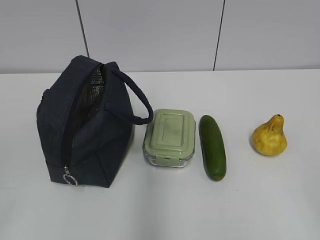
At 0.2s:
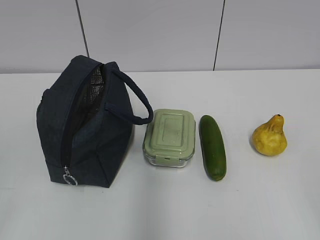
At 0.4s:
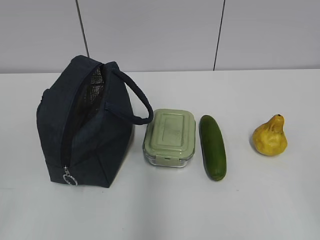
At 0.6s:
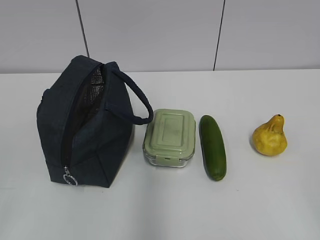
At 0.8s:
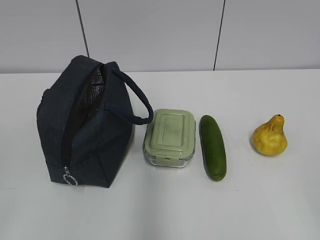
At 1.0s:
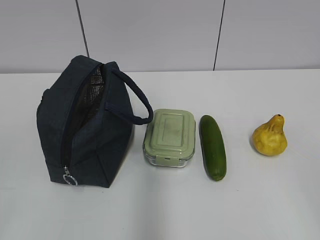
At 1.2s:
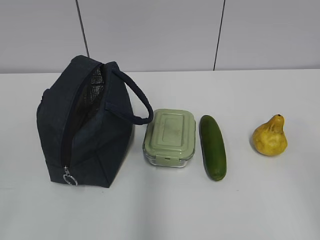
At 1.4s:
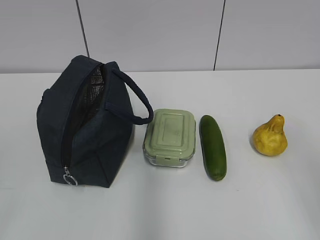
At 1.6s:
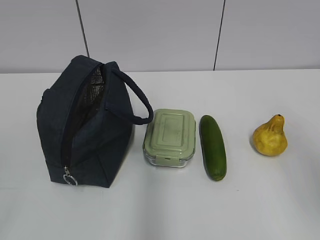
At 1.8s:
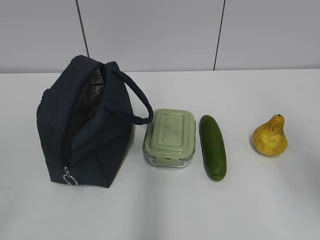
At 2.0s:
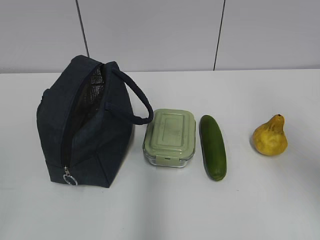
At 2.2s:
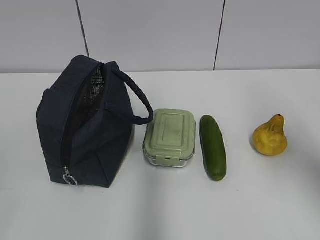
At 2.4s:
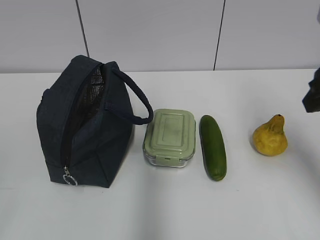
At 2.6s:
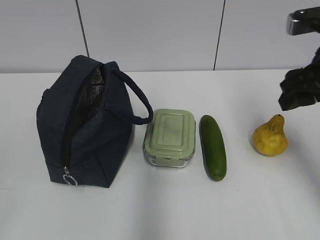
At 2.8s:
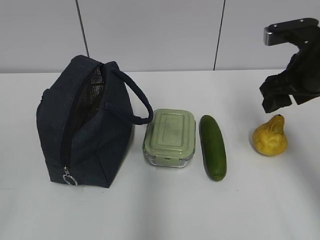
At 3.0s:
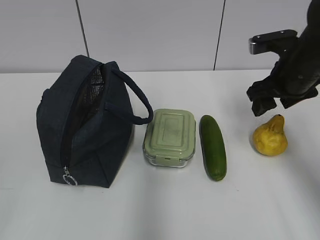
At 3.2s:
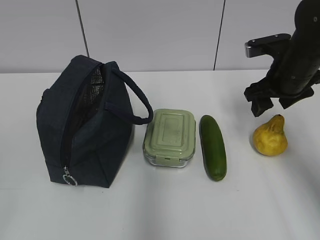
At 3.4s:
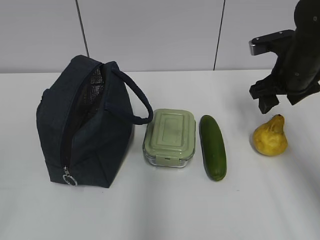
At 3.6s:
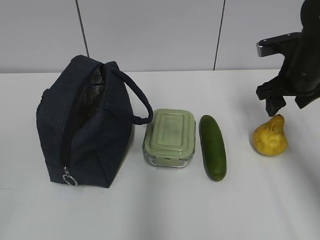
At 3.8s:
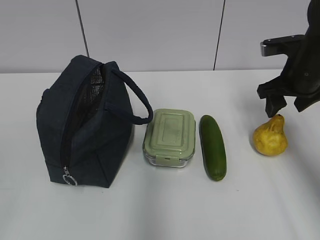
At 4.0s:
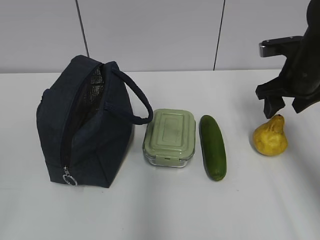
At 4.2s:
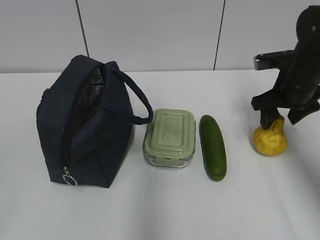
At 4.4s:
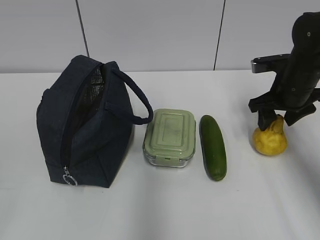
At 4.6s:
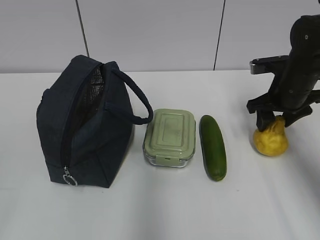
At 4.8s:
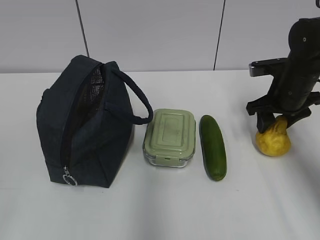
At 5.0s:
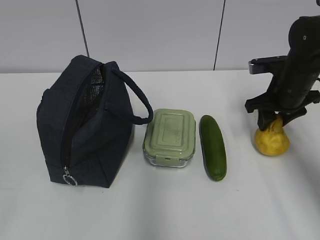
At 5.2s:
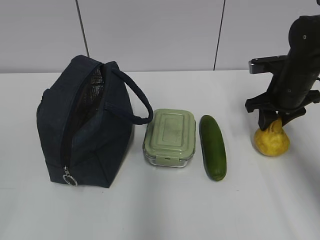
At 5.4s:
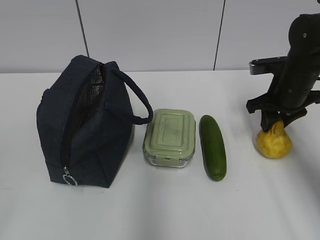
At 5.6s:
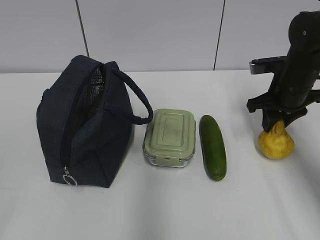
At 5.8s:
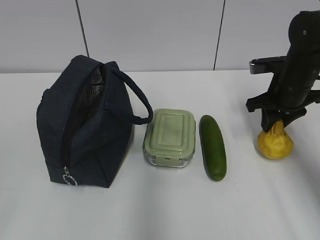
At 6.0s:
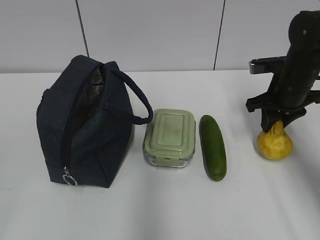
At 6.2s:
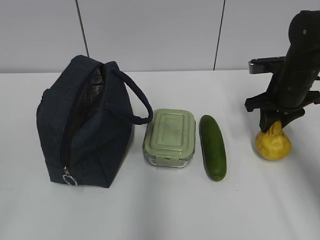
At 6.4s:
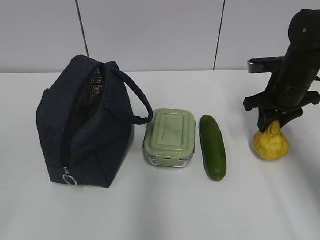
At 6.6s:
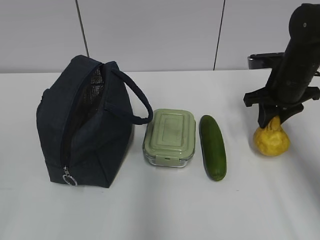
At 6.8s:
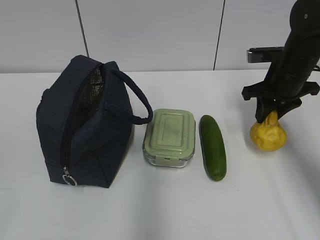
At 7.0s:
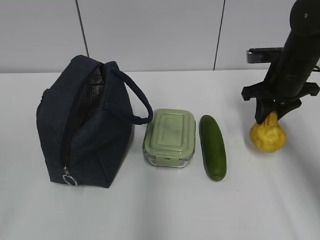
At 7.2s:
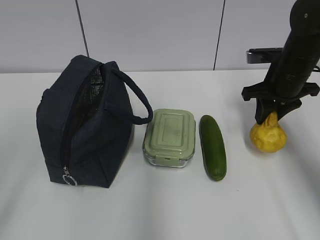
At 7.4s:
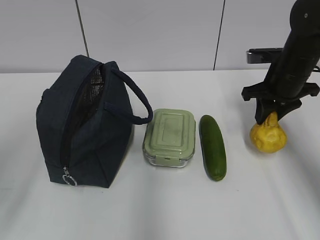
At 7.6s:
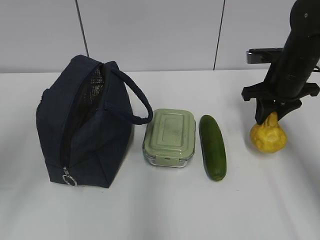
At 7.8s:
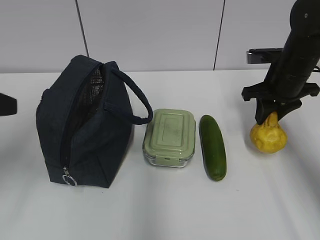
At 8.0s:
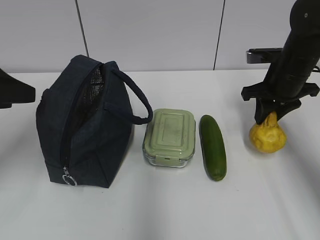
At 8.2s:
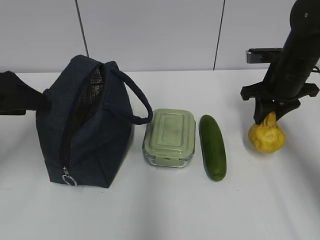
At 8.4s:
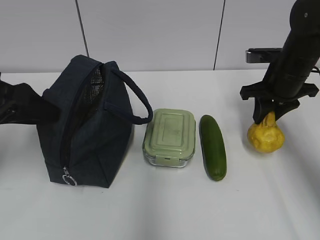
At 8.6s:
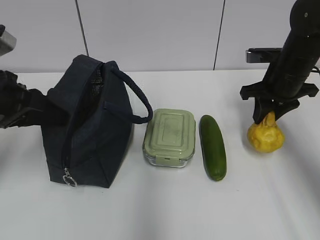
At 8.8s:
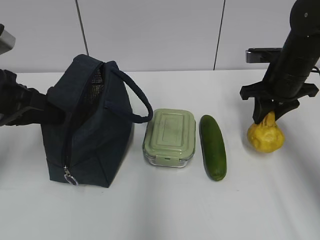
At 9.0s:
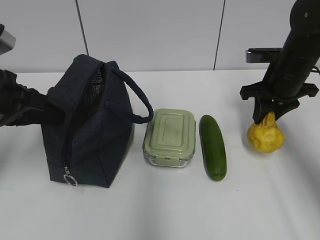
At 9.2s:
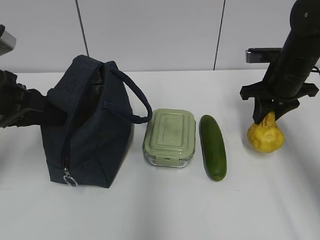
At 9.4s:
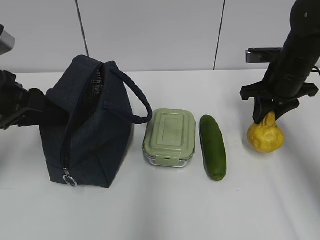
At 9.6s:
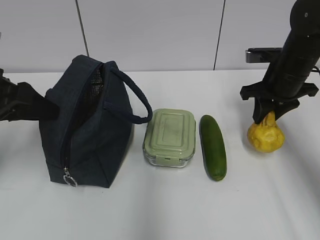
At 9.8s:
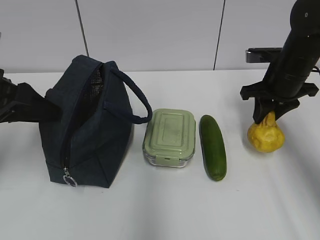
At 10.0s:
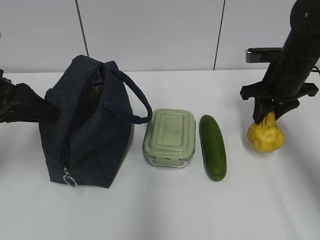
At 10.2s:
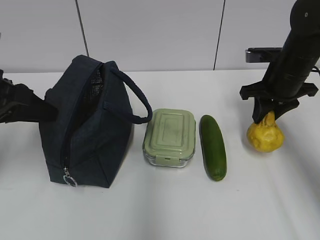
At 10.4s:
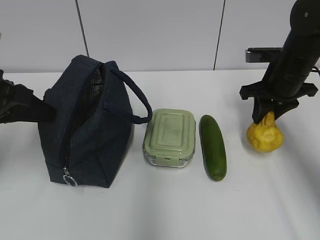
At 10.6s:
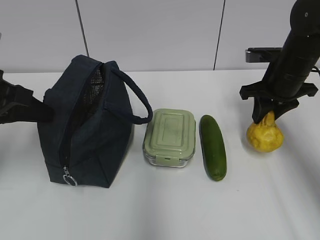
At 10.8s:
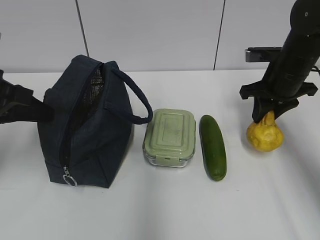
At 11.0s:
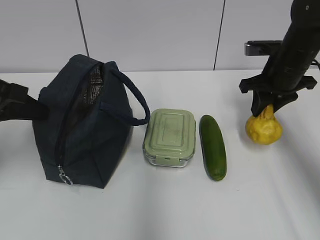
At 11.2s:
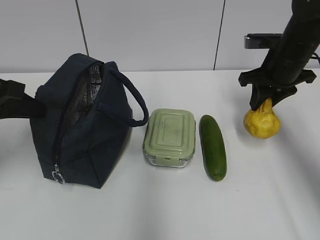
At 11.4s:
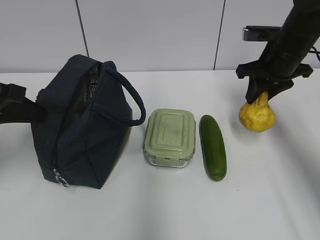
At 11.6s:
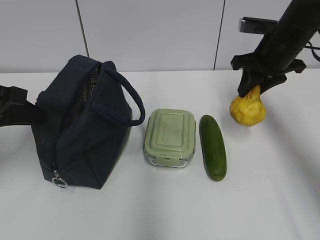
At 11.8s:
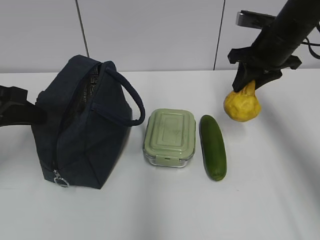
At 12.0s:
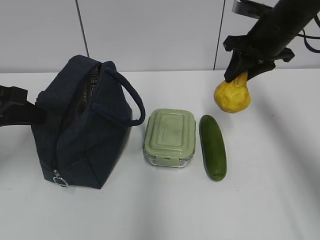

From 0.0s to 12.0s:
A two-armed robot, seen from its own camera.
Step, from 0.0s to 6.4s: Grab the pear with your right hand.
From 1.6s to 3.0s: The right gripper heads forward, covering approximately 30 cm.
From 3.0s to 4.4s: The right gripper ends up roughly 5 cm from where it was.
From 4.4s to 6.0s: The right gripper closes its fingers.
From 6.0s to 7.6s: The left gripper goes approximately 15 cm forward.
From 7.6s to 9.0s: The left gripper is displaced forward and downward by approximately 10 cm, and closes up.
From 9.0s to 10.4s: The left gripper opens, then closes once more.
From 10.4s to 12.0s: The right gripper travels upward by some 5 cm.

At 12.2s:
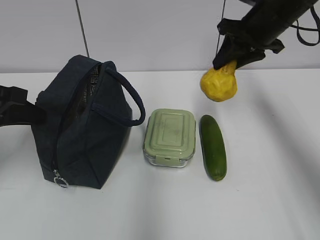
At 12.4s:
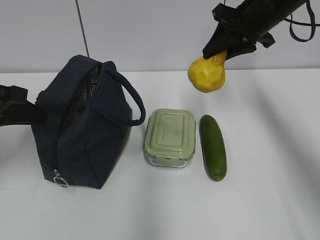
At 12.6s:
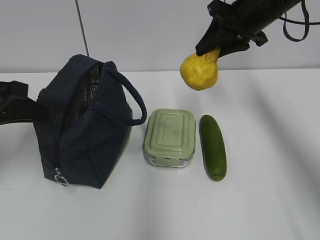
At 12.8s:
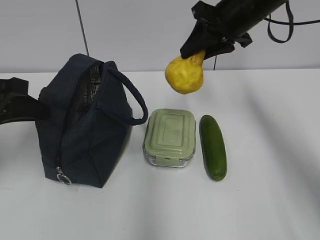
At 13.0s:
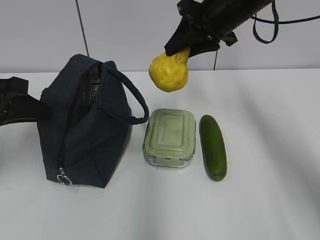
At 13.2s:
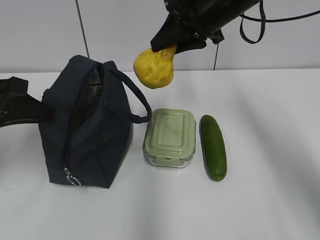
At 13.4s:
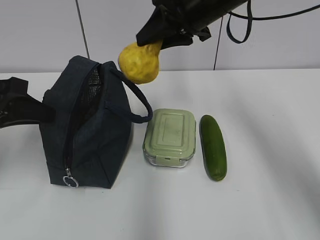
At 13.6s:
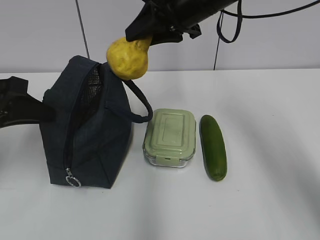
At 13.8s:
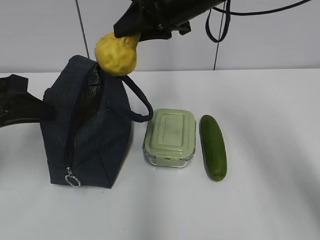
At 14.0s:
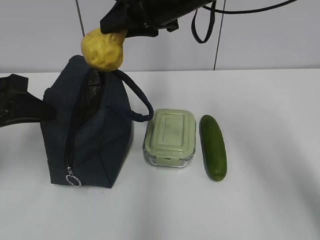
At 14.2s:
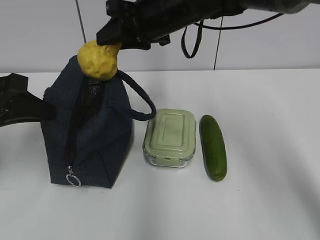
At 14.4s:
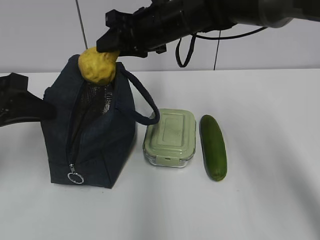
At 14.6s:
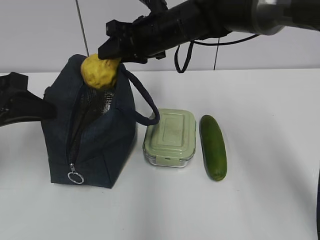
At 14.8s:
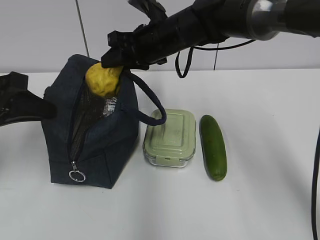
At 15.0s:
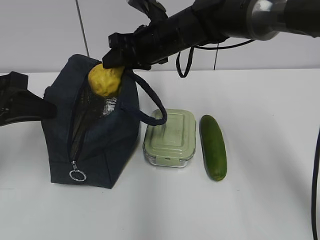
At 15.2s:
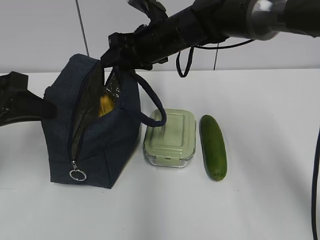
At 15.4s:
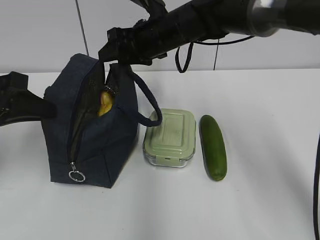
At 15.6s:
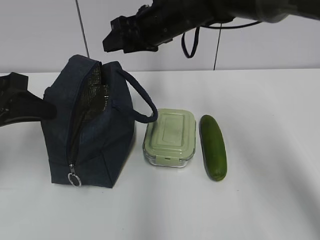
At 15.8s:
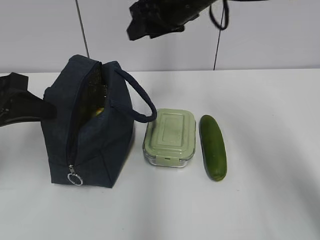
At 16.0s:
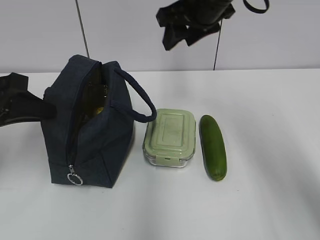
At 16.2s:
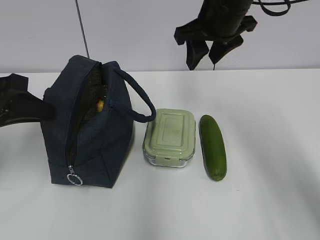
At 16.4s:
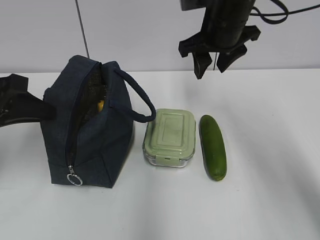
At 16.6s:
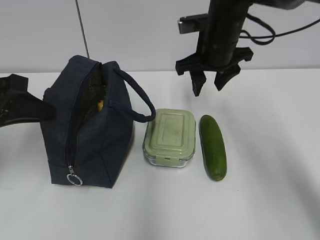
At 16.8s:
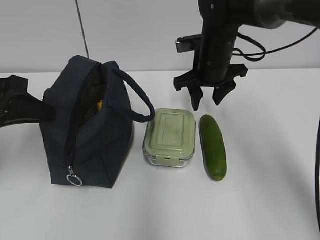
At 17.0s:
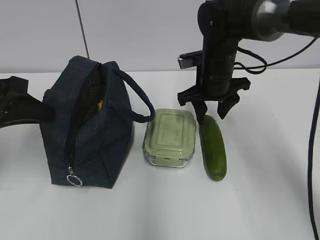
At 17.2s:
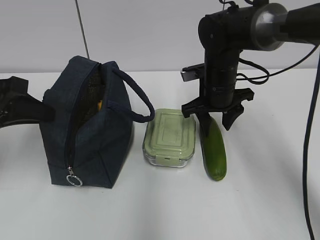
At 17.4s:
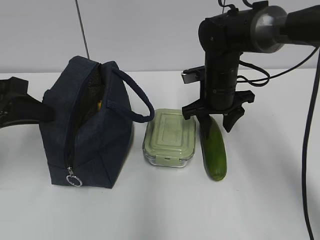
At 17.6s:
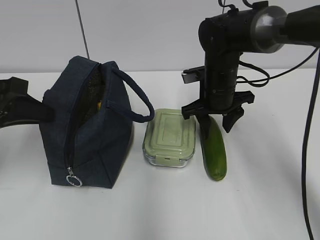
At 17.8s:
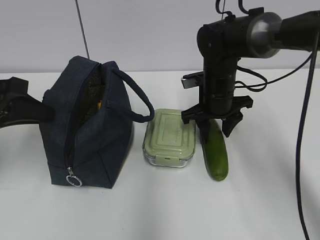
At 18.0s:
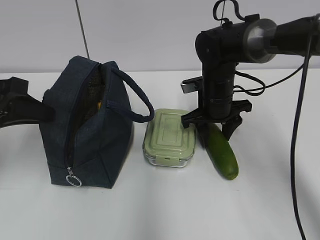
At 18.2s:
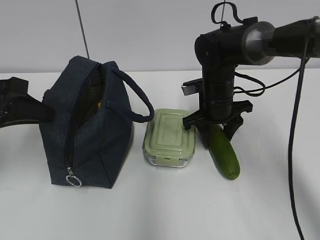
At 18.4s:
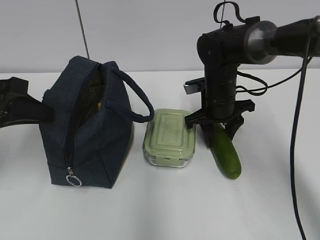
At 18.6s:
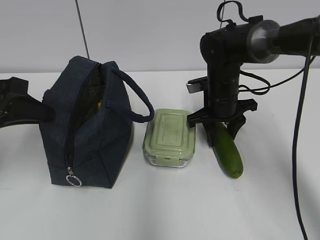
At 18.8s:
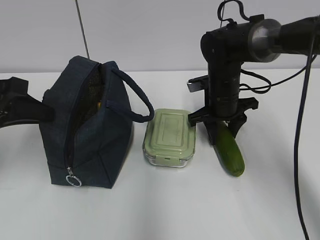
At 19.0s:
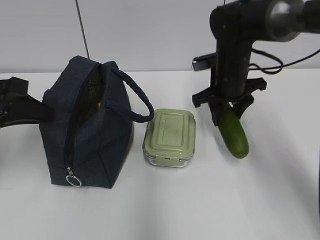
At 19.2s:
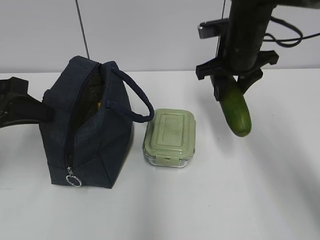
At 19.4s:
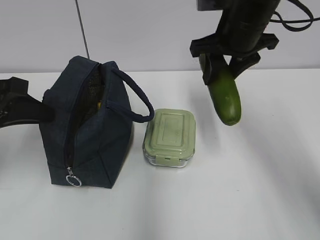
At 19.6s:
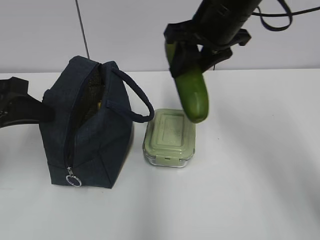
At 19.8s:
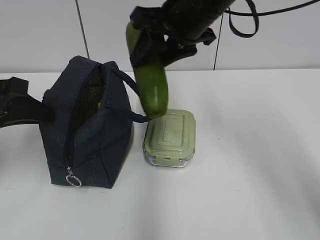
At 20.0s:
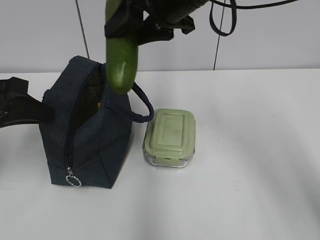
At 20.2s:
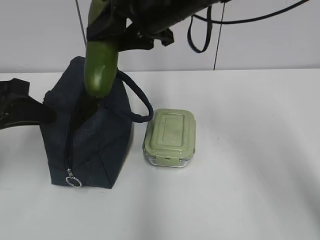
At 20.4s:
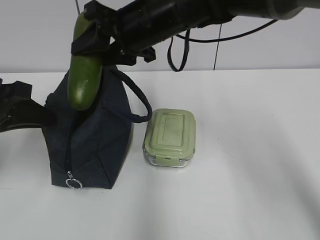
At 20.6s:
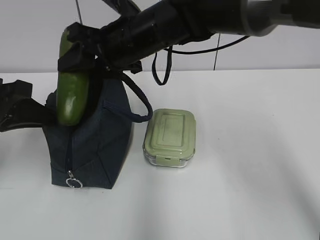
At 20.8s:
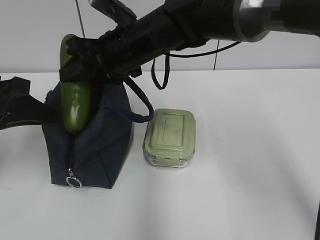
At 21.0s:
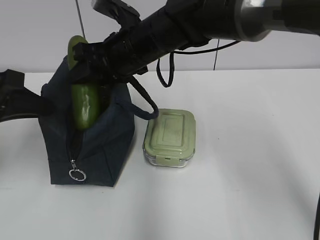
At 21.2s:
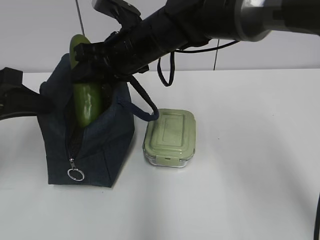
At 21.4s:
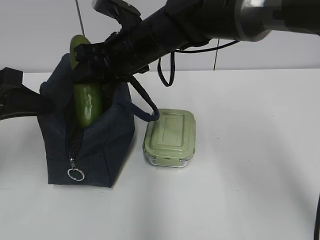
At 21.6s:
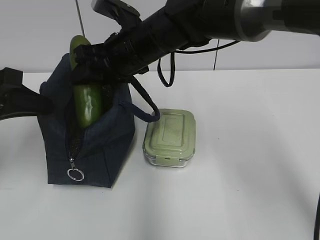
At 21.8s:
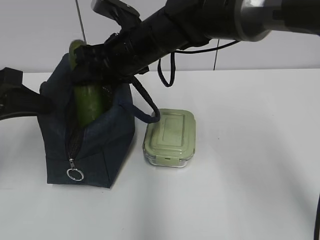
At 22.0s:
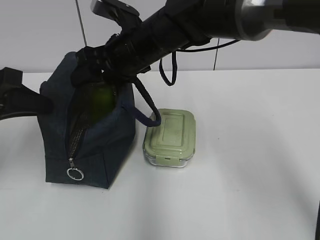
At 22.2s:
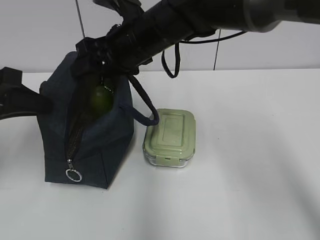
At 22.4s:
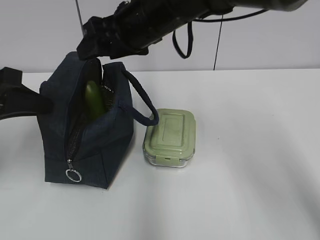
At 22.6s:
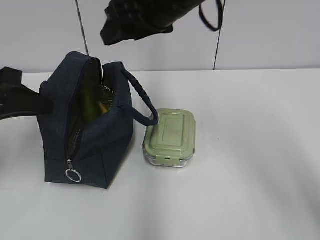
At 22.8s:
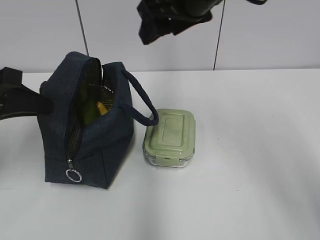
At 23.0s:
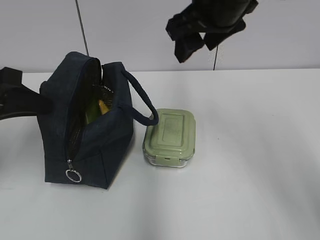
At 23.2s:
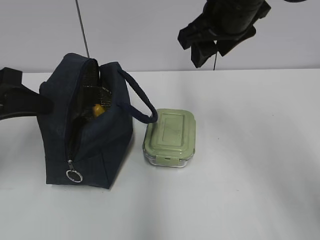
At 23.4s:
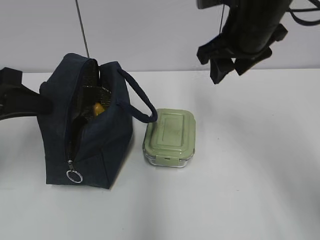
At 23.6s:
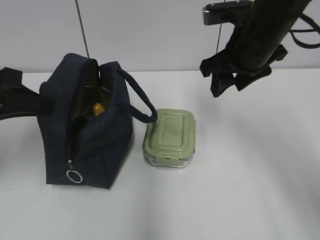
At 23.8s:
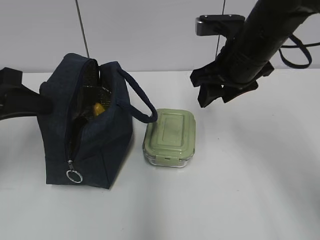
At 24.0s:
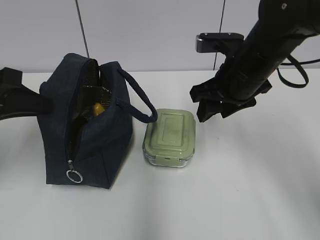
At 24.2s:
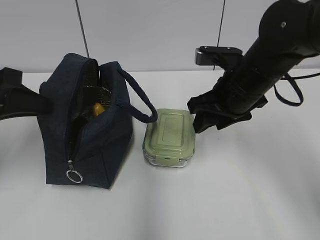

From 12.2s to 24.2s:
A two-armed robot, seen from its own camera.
Step, from 14.2s to 15.4s: Place it into the bag with your right hand.
Step, from 15.6s to 18.6s: Grab the cucumber with your right hand.
Step, from 18.8s to 22.8s: Place it into the bag with your right hand.
From 12.2s to 13.8s: The right gripper goes some 15 cm to the left.
From 13.8s to 15.2s: The right gripper goes roughly 10 cm downward.
From 15.2s to 16.6s: The right gripper travels to the right by some 10 cm.
From 16.6s to 18.2s: The right gripper goes some 10 cm downward.
From 18.2s to 19.8s: The right gripper shifts about 20 cm upward.
From 19.8s to 21.2s: The right gripper goes roughly 10 cm to the left and downward.
From 21.2s to 22.6s: The right gripper travels upward and to the right by roughly 10 cm.
From 22.6s to 24.2s: The right gripper goes some 15 cm downward and to the right.
